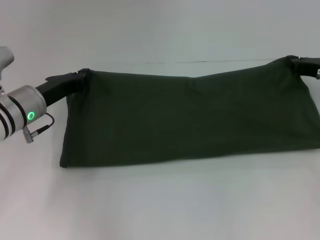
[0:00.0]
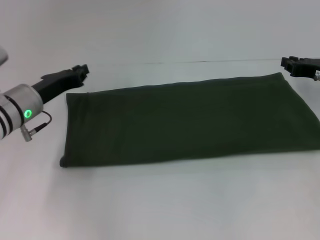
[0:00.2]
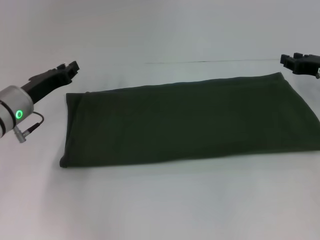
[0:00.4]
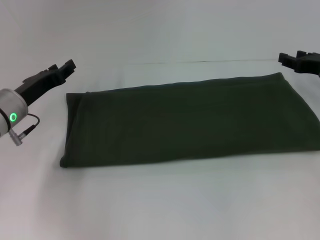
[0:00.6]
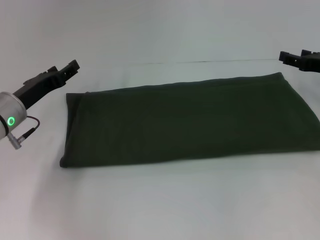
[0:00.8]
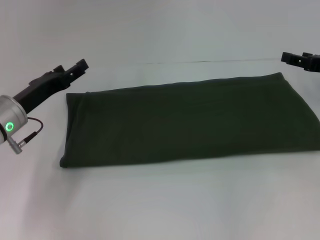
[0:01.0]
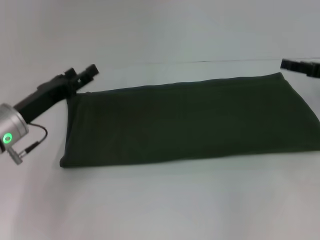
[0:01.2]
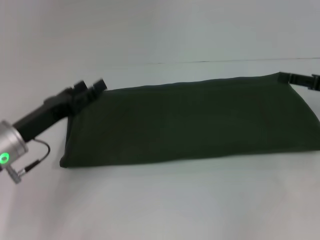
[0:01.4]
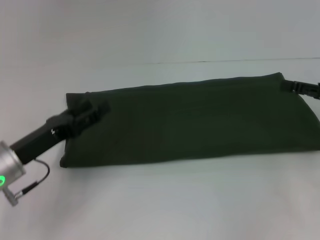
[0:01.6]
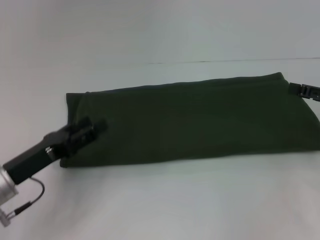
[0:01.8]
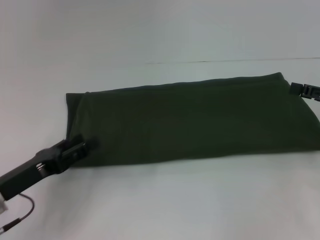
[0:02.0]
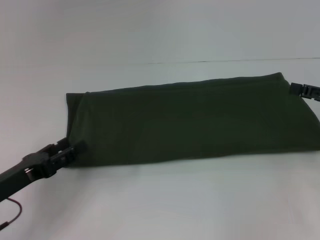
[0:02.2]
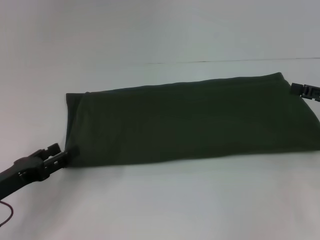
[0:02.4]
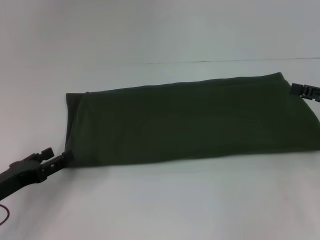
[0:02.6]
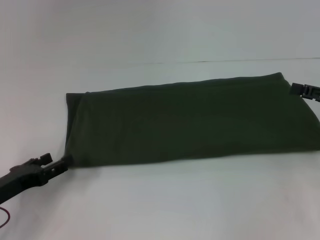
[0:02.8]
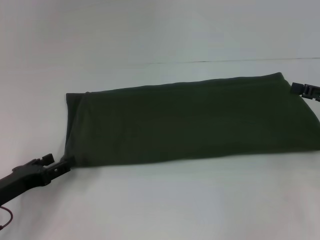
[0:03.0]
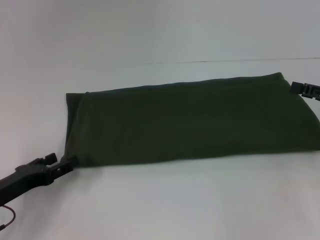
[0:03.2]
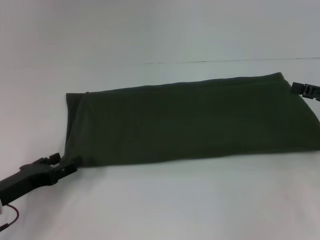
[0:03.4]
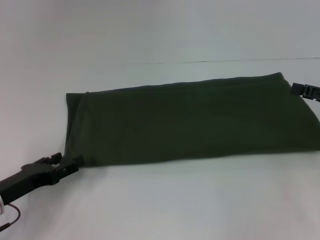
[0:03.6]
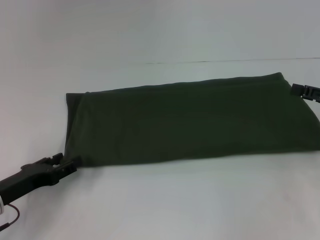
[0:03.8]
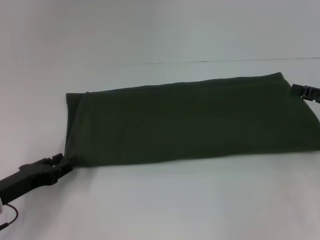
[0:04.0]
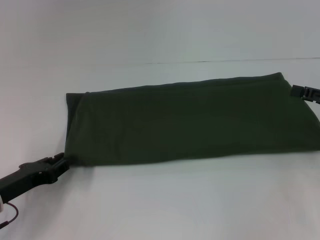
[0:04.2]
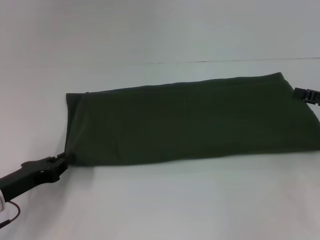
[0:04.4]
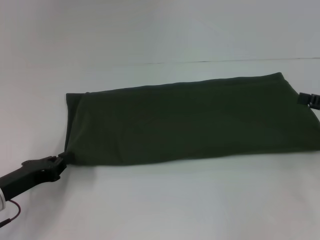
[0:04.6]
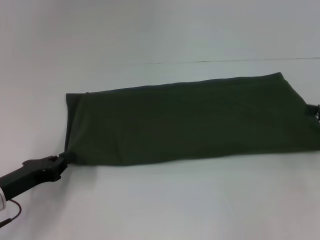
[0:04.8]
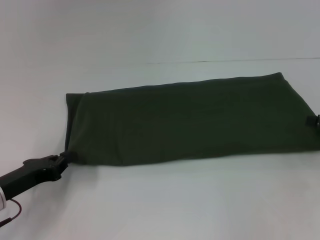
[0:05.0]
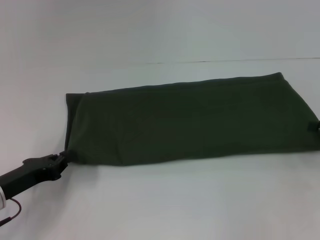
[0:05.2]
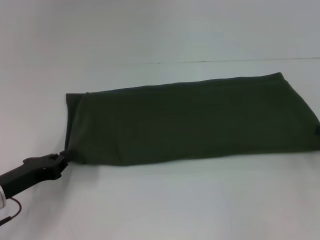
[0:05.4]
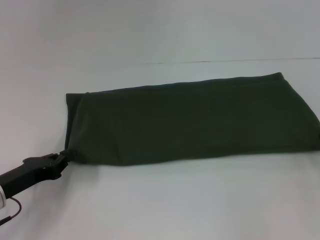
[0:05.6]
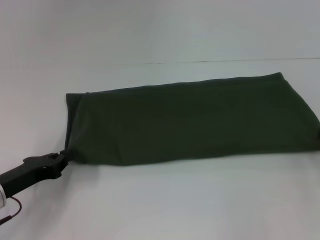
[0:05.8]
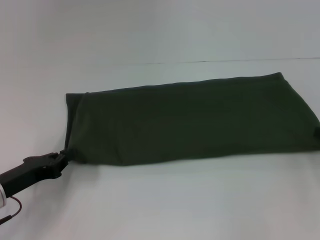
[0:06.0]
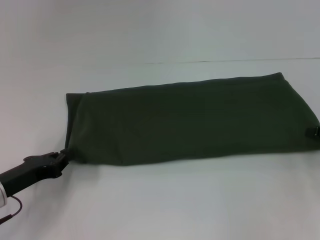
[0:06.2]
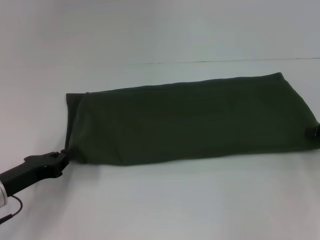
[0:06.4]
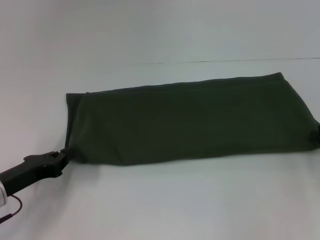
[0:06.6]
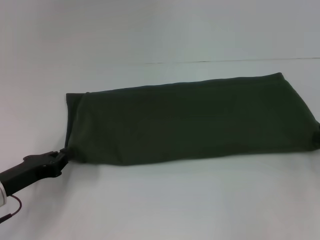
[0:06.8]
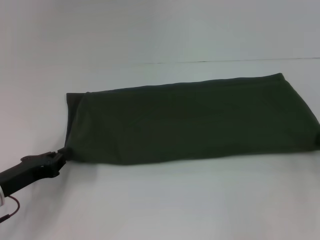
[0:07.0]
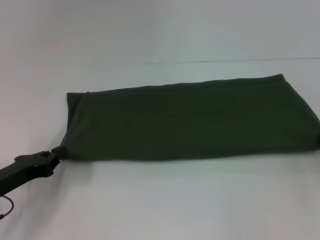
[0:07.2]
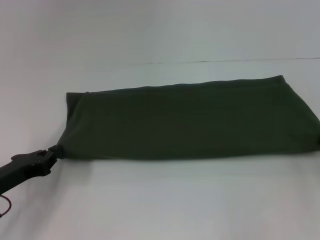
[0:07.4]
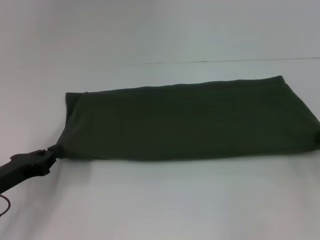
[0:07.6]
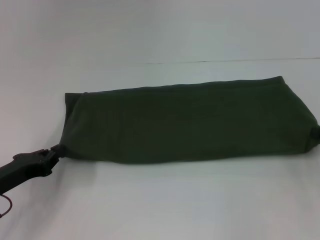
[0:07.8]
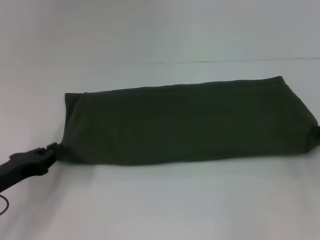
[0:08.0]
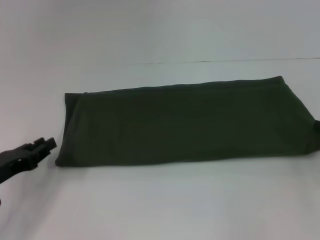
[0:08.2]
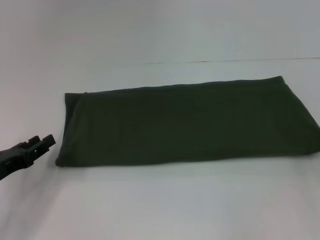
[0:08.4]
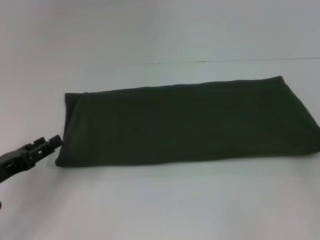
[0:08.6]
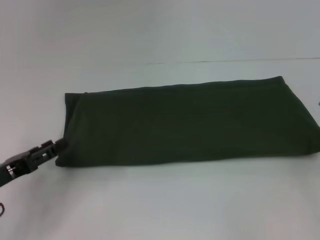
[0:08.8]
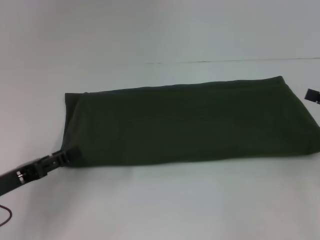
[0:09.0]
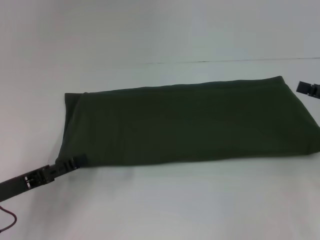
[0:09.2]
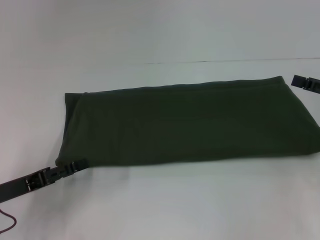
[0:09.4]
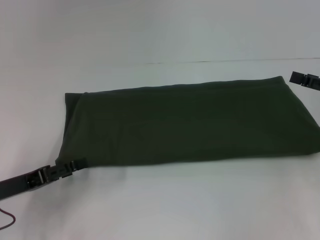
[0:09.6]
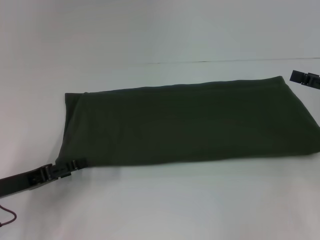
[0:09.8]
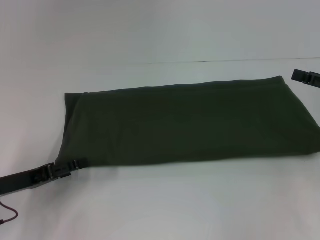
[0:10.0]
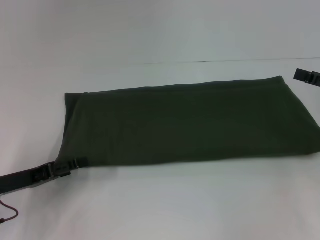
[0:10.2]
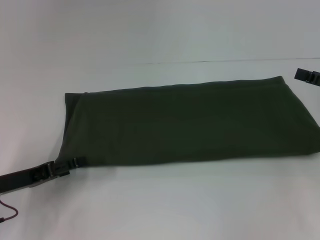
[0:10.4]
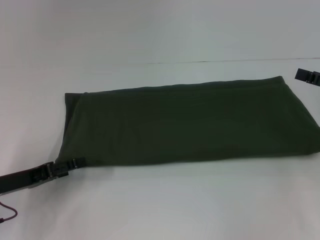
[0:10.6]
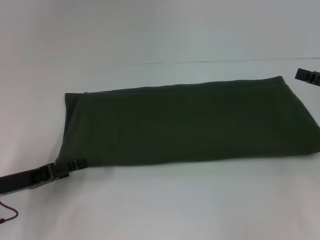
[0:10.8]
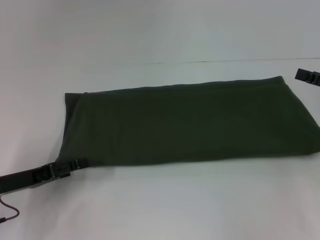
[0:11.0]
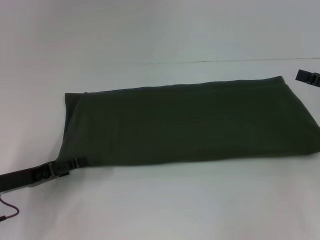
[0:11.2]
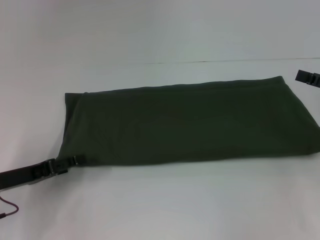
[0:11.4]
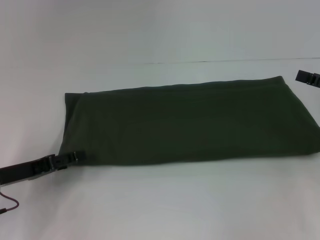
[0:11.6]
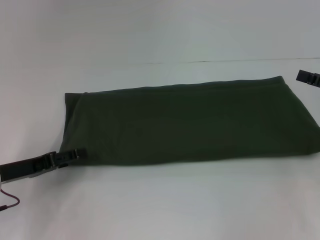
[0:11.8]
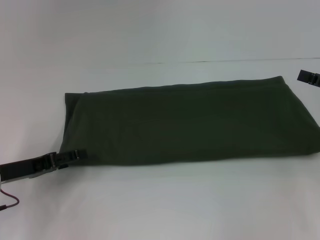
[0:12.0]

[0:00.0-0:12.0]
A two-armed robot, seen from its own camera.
0:00.0 to 0:01.6: The grippers both shift backward by approximately 10 cm. The left gripper opens its fingers, while the right gripper opens.
0:01.6 to 0:03.0: The left gripper moves some 5 cm.
0:03.0 to 0:04.4: The left gripper closes its fingers.
0:04.4 to 0:06.0: The grippers make only small movements.
0:06.0 to 0:07.6: The right gripper closes up.
0:07.6 to 0:09.0: The left gripper opens its fingers; the right gripper opens its fingers.
0:09.0 to 0:12.0: The grippers make only small movements.

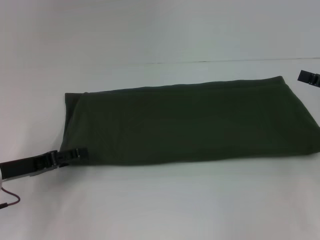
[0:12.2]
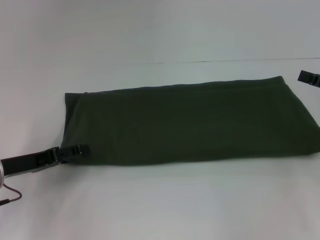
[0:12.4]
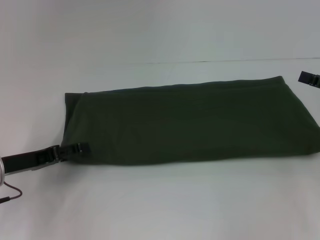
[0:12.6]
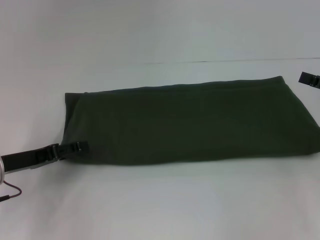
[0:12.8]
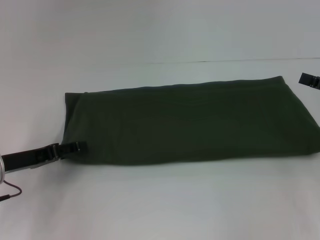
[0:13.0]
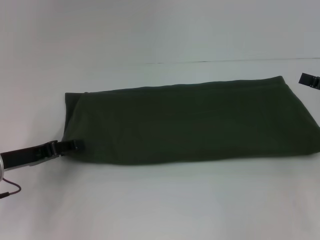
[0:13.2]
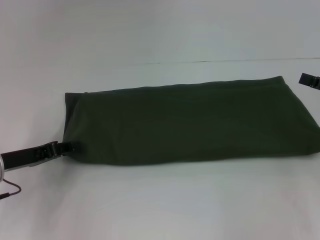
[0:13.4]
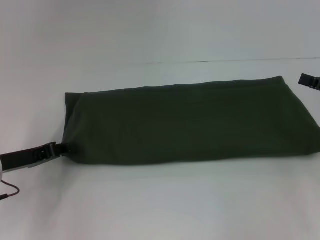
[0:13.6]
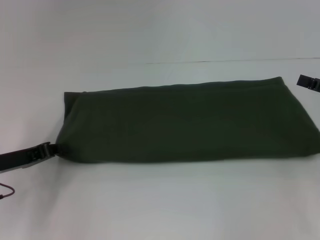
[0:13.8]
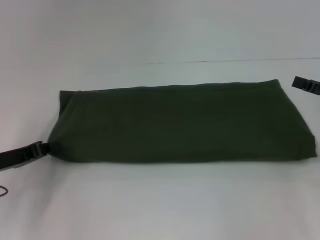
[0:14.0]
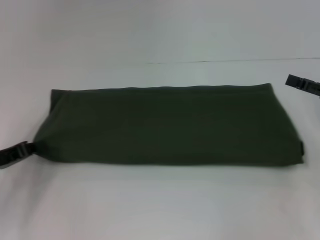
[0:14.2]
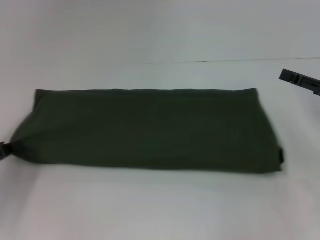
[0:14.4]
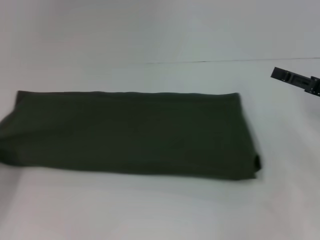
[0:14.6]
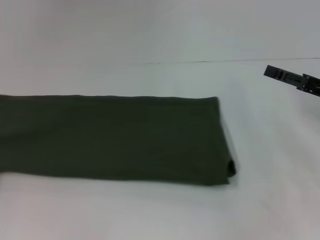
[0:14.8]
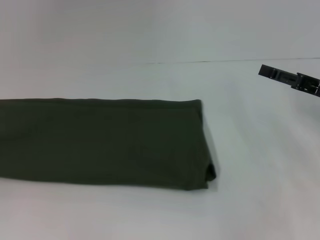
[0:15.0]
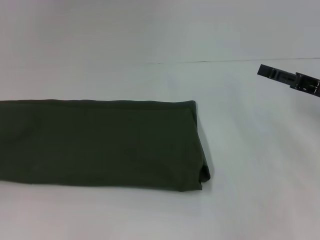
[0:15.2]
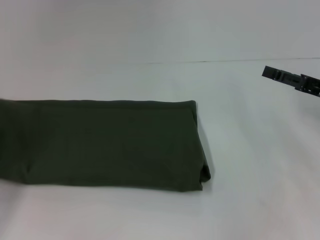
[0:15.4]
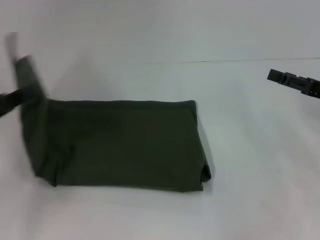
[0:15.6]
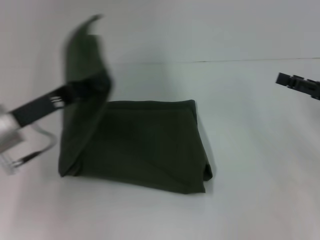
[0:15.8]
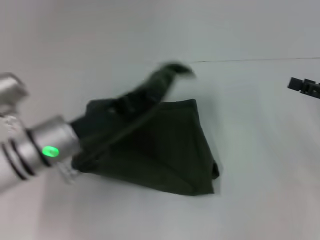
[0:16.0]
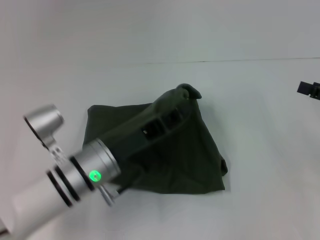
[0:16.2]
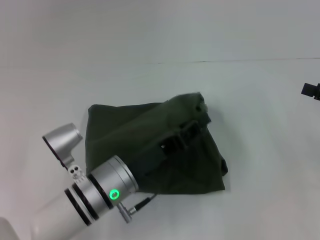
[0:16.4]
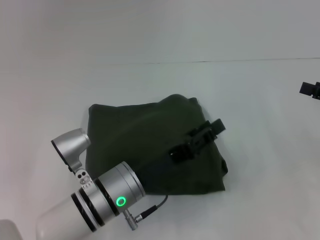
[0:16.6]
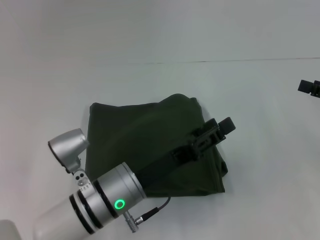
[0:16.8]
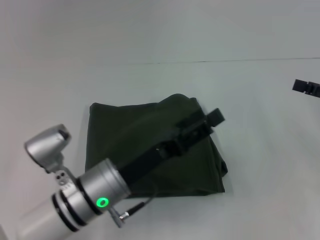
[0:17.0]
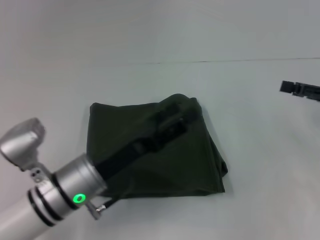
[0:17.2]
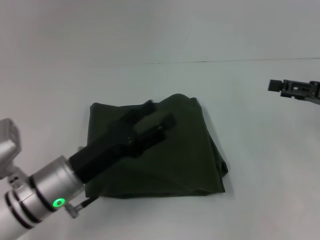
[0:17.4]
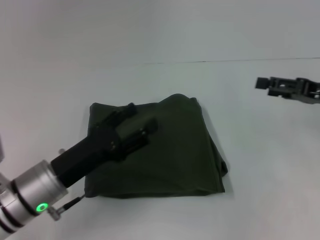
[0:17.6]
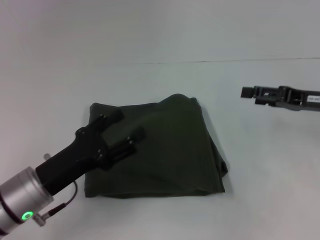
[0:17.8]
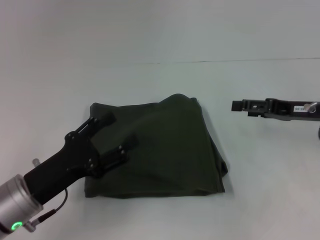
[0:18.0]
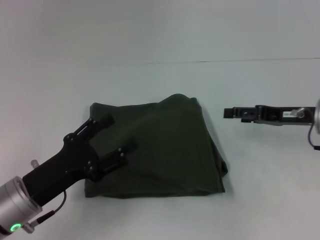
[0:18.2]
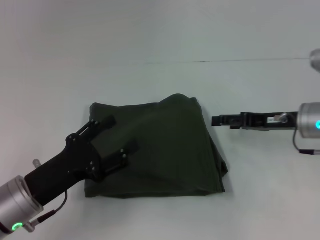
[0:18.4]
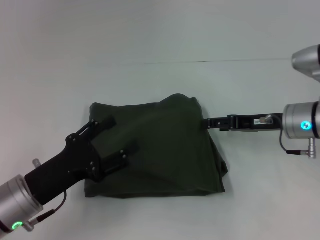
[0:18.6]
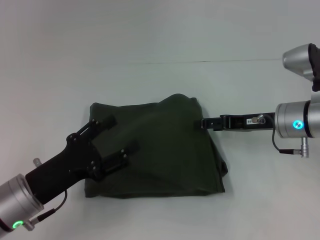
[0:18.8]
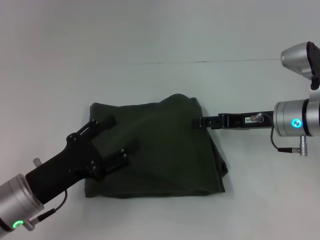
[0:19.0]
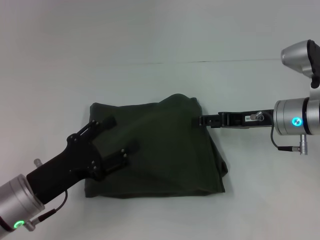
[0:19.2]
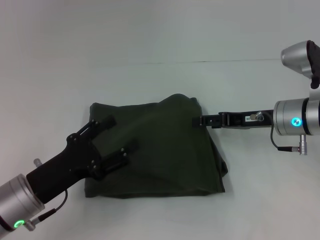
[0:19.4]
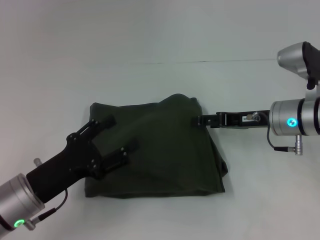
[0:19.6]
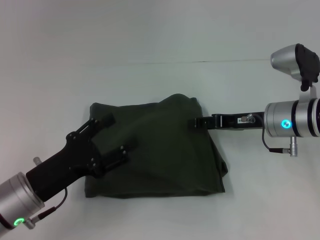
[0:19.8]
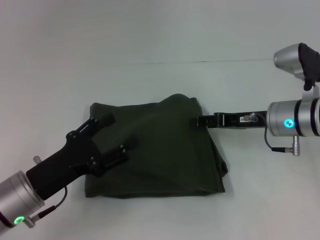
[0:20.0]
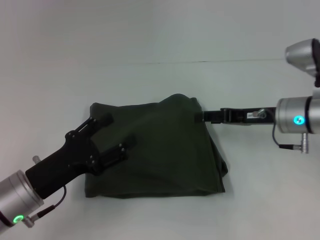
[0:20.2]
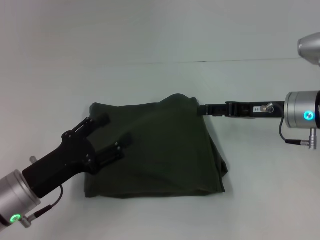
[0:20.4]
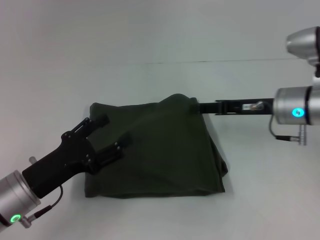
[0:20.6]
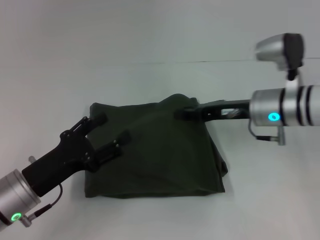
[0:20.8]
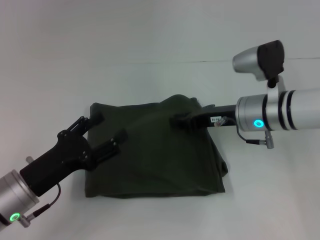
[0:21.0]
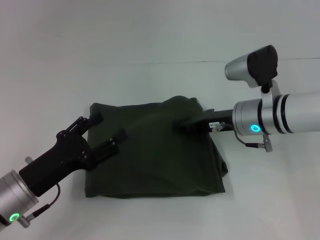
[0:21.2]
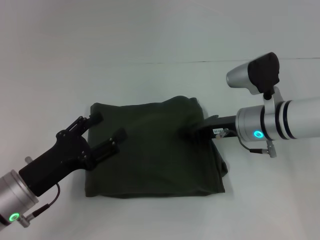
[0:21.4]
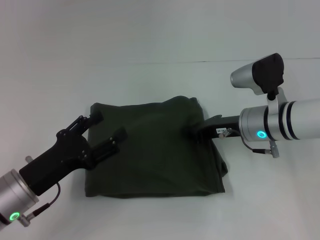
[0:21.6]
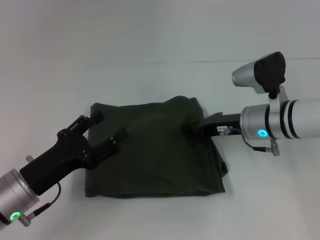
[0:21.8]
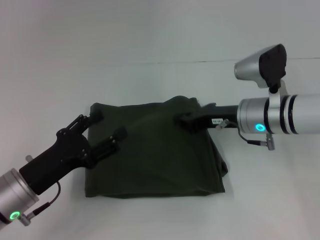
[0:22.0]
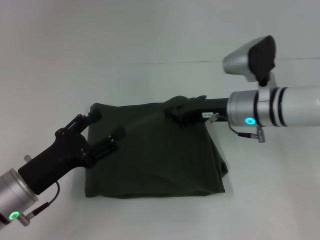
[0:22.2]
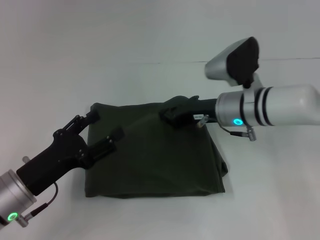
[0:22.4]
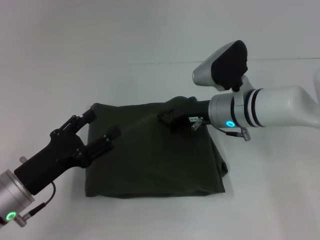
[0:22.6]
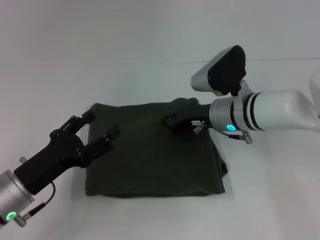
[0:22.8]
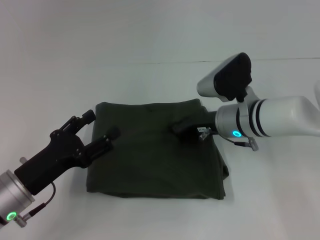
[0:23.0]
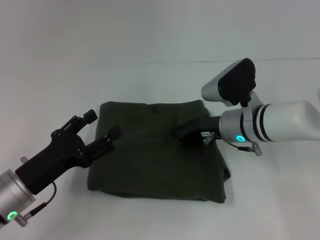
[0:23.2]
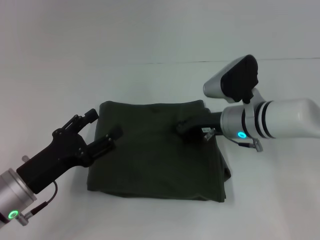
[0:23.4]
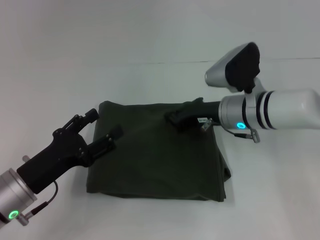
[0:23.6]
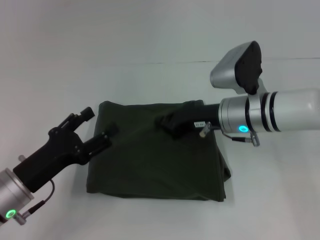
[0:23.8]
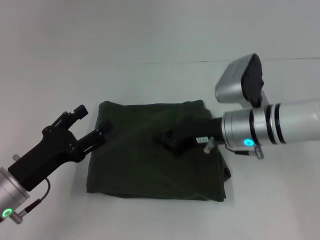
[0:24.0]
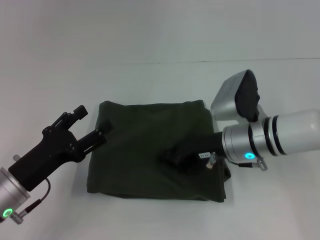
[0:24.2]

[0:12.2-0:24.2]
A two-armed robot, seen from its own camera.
Step, 0:12.2 to 0:16.4: Fold the clothes with your left hand.
0:12.2 to 0:13.8: The left gripper closes its fingers.
0:13.8 to 0:15.2: The right gripper shifts some 5 cm to the left. Meanwhile the left gripper moves to the left and backward, roughly 15 cm.
0:15.2 to 0:16.6: The left gripper shifts roughly 35 cm to the right. The right gripper shifts roughly 5 cm to the right.
0:16.6 to 0:18.2: The right gripper is displaced to the left and forward by approximately 10 cm, while the left gripper shifts approximately 15 cm to the left, and opens its fingers.
0:18.2 to 0:19.8: The right gripper is displaced to the left by approximately 5 cm.
0:19.8 to 0:21.2: The right gripper closes up.
0:21.2 to 0:24.2: There are only small adjustments of the grippers.
